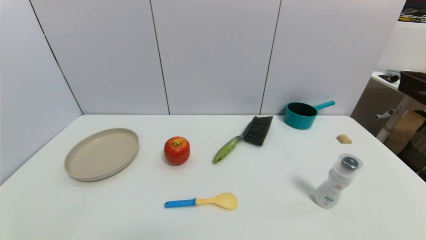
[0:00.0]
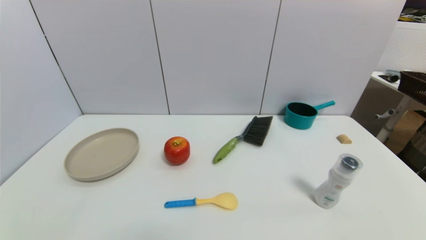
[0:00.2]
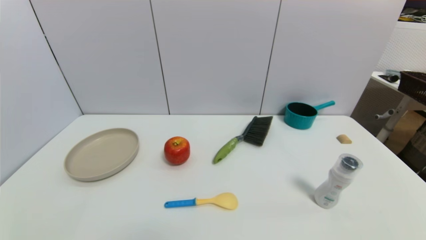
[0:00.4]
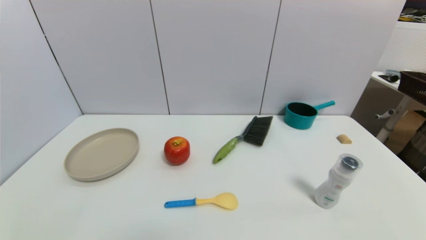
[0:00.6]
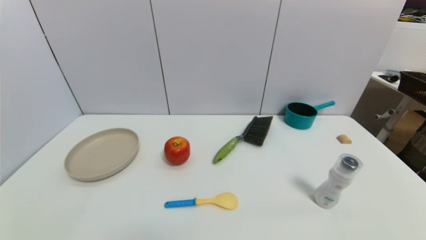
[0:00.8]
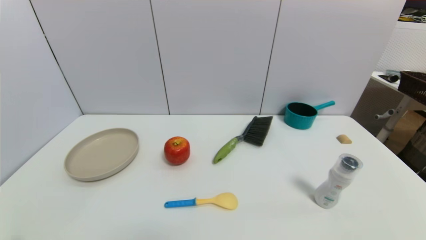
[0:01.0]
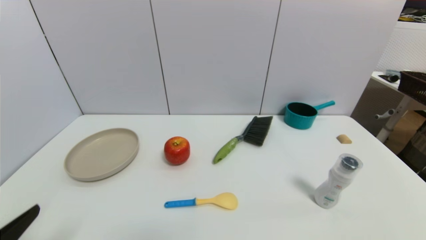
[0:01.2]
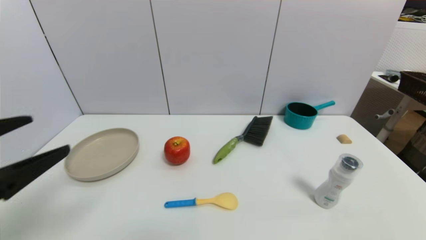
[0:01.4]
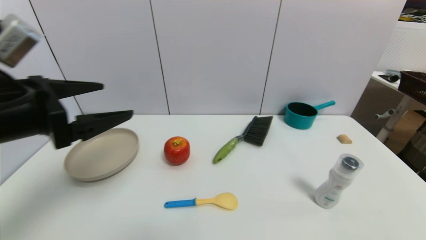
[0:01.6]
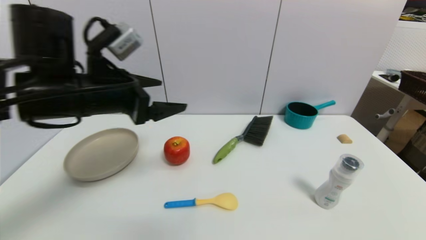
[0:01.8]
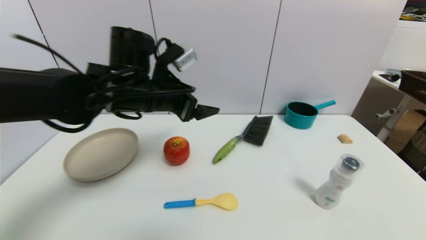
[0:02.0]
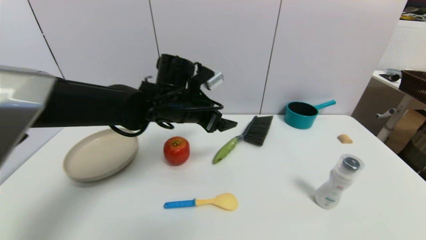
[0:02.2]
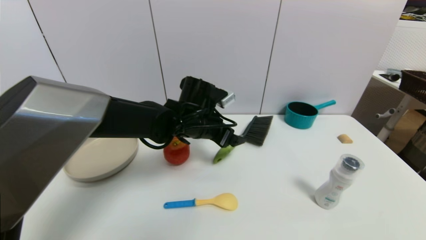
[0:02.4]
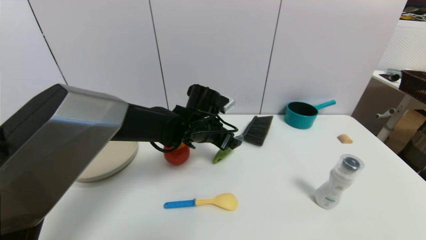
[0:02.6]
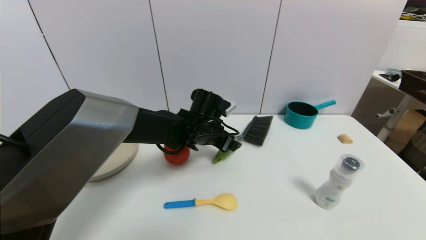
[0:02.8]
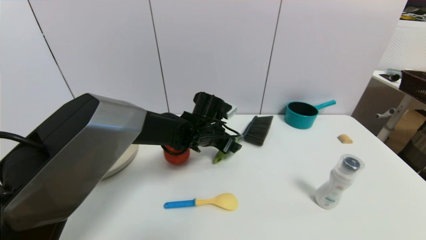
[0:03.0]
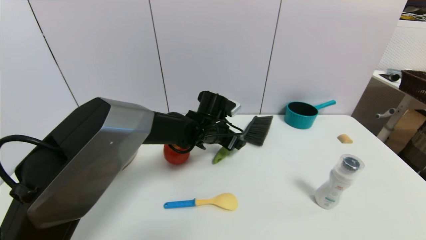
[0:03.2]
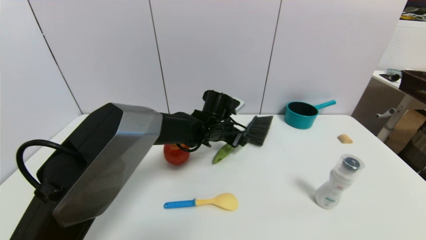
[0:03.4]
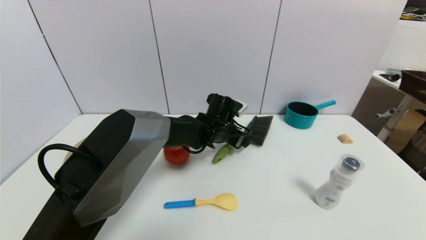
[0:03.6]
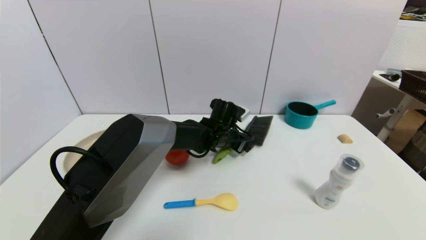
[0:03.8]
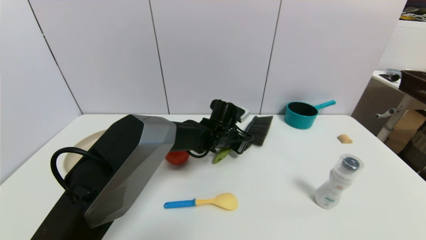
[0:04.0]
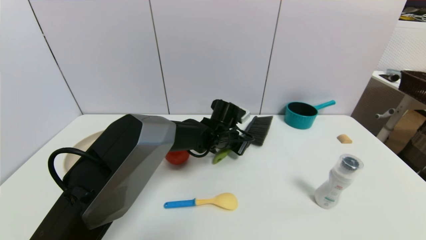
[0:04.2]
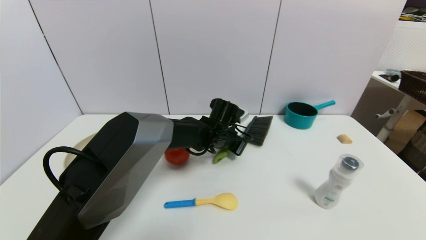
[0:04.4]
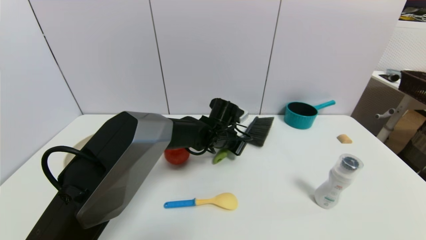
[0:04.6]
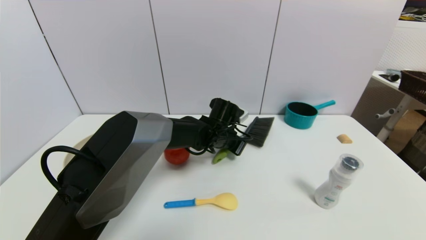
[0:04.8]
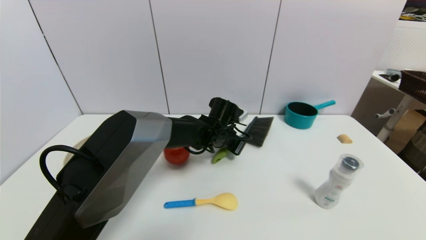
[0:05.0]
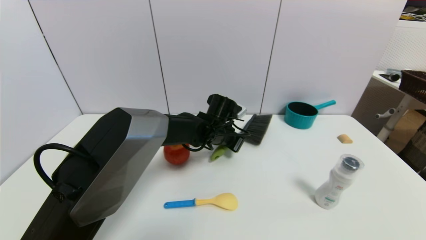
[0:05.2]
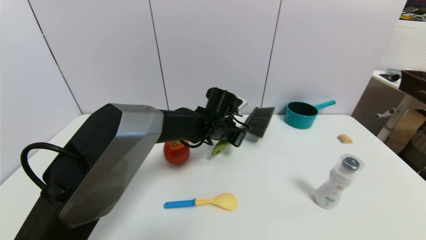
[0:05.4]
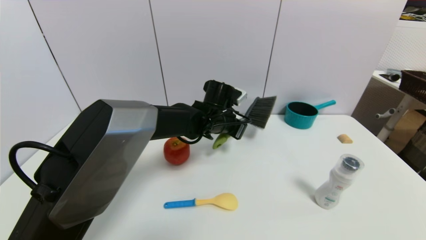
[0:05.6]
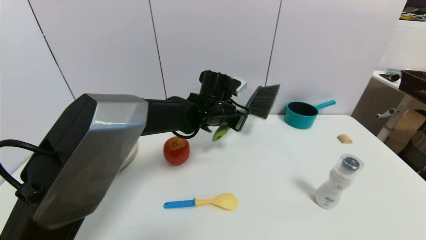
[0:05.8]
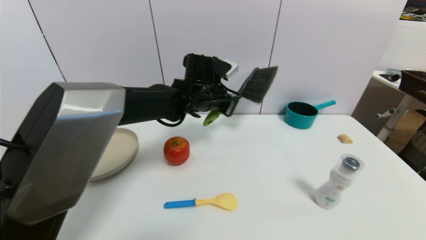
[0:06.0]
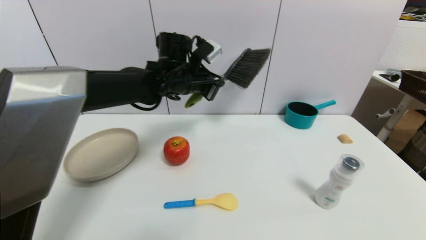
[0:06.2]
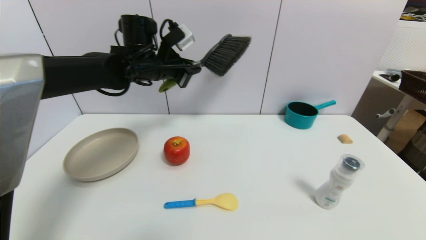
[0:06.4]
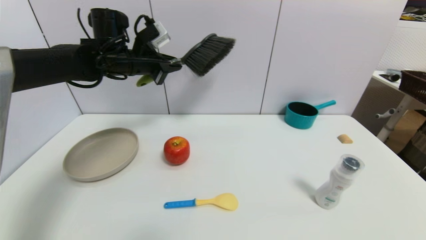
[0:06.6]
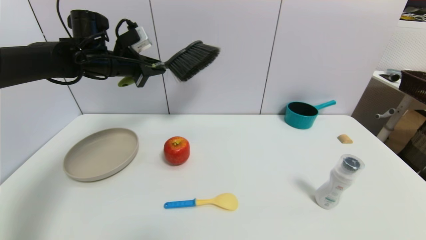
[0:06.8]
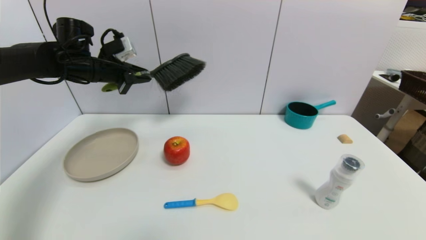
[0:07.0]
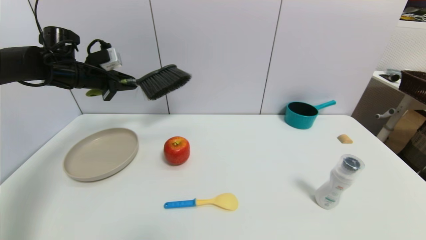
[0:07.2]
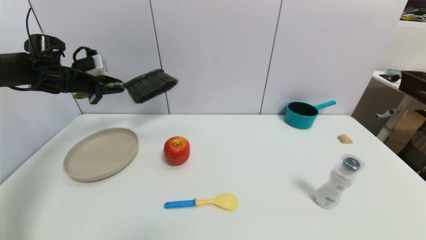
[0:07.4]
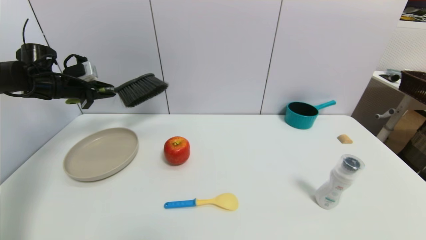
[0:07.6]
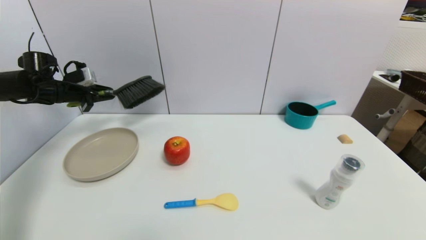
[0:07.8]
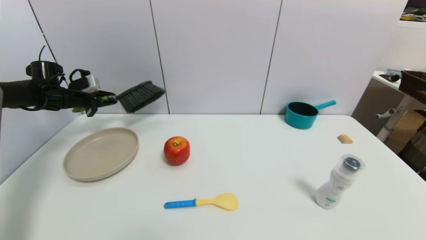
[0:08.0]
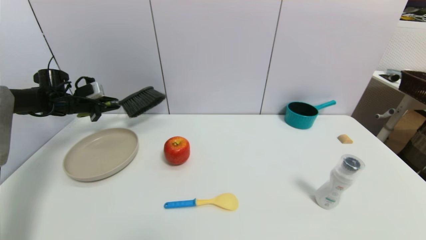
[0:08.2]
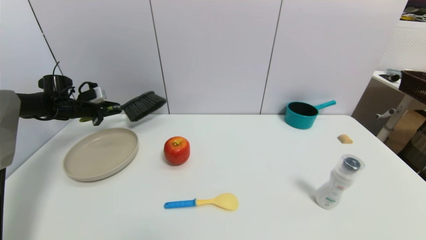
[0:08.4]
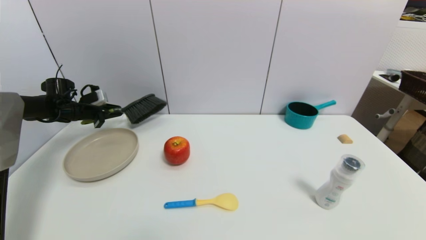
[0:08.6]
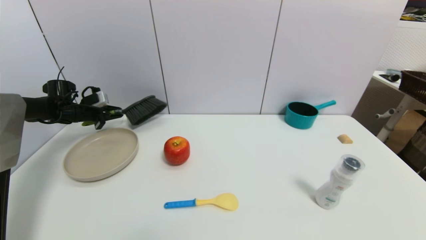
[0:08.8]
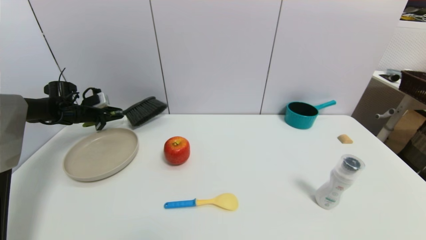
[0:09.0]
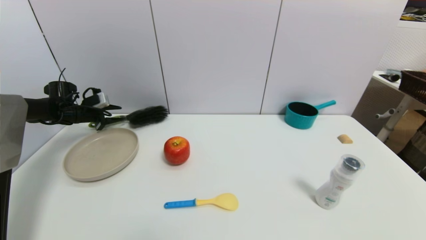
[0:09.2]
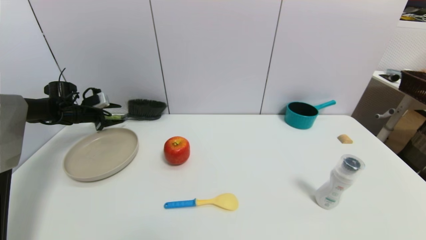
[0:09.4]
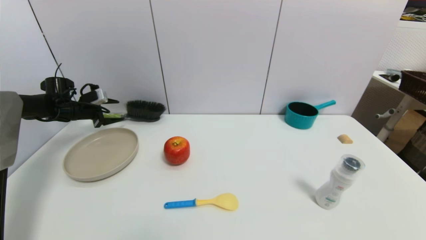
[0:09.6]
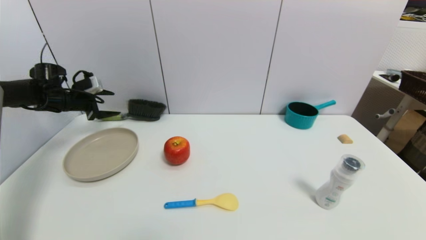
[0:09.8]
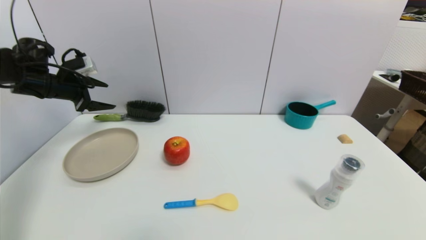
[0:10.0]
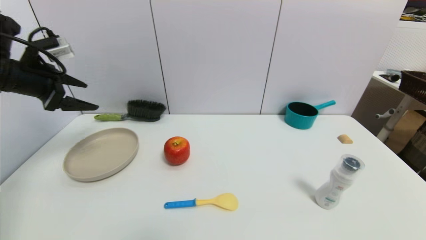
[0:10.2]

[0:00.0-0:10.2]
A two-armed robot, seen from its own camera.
Task of the whole recording: put the brush in the designated position.
Step, 0:01.2 to 0:04.8: Grasp the brush with left gripper.
Step, 0:05.0 to 0:09.4: Place the brush on the table with left gripper.
0:00.0 to 0:01.4: The left gripper shifts approximately 25 cm upward and forward.
0:01.4 to 0:03.0: The left gripper is displaced forward, to the right and downward by some 40 cm.
0:03.0 to 0:04.4: The left gripper ends up approximately 5 cm from where it was, and closes up.
0:04.4 to 0:05.8: The left gripper goes approximately 10 cm upward.
0:05.8 to 0:07.2: The left gripper shifts roughly 35 cm to the left.
0:07.2 to 0:08.8: The left gripper is displaced downward, to the left and forward by approximately 20 cm.
0:08.8 to 0:10.2: The left gripper is displaced backward, upward and to the right by about 25 cm, and opens.

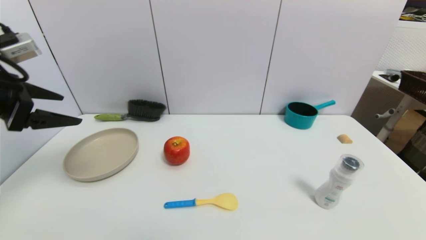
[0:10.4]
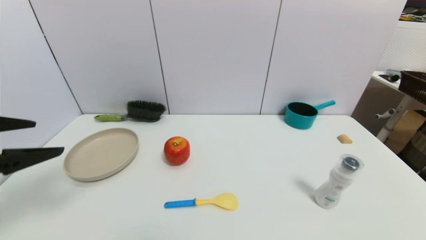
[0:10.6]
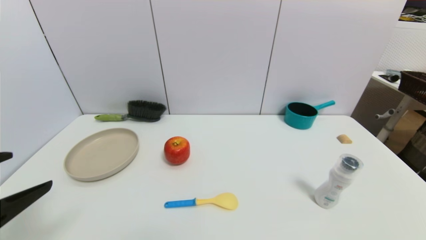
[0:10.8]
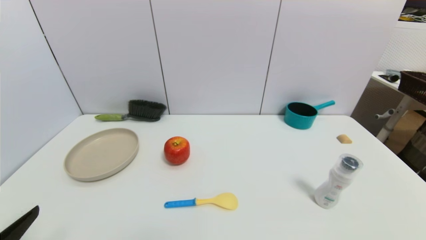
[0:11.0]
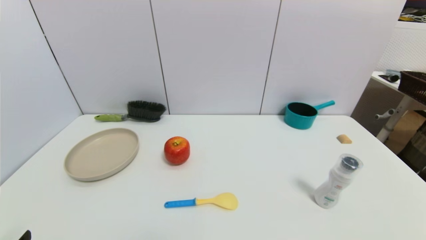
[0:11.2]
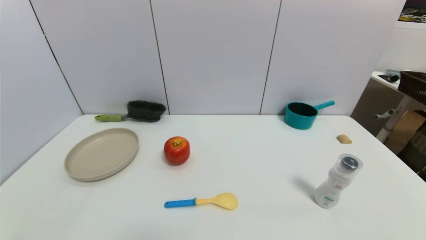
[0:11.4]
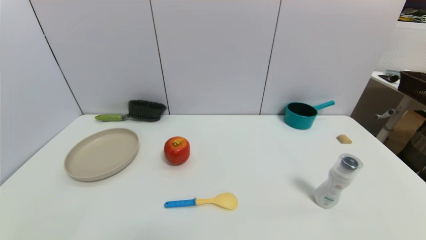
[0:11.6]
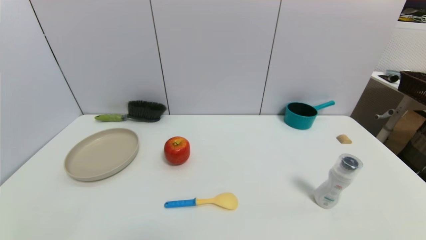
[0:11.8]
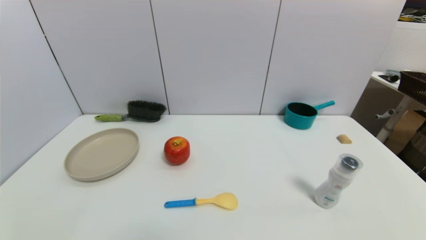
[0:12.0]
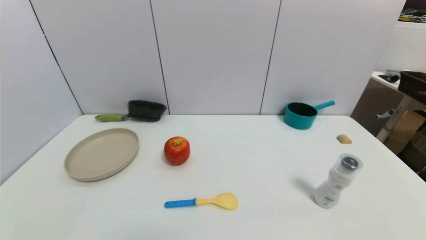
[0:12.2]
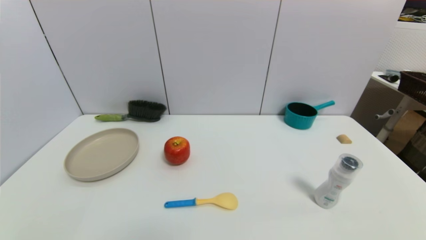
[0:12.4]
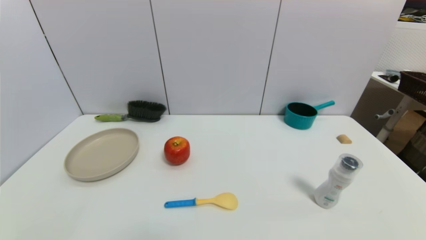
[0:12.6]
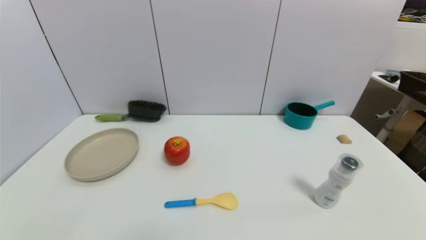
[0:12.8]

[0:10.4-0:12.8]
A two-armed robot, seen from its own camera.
Task of the whole recording: put the brush in the designated position.
0:10.4 to 0:11.6: The left gripper travels downward and backward by about 35 cm.
0:11.6 to 0:12.8: The two grippers keep their place.
